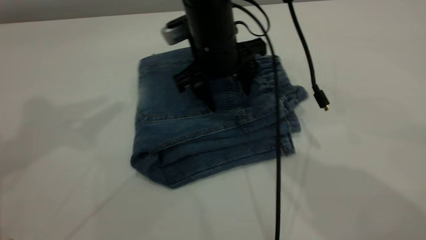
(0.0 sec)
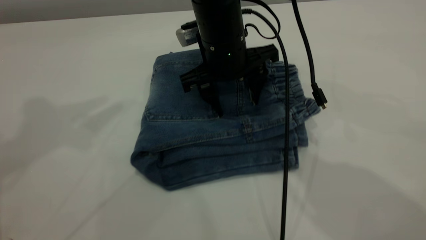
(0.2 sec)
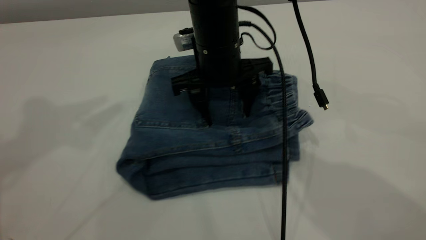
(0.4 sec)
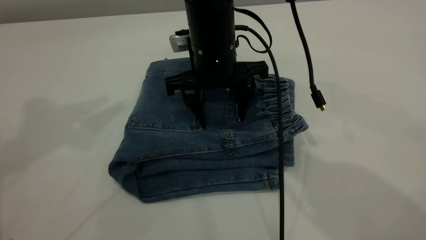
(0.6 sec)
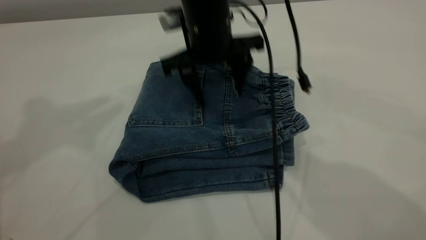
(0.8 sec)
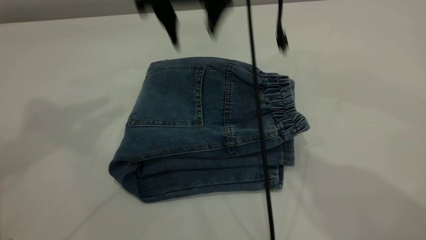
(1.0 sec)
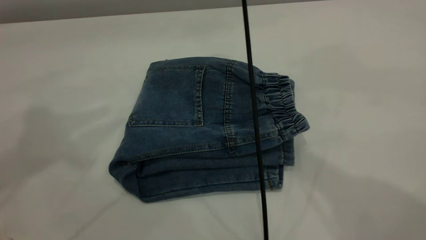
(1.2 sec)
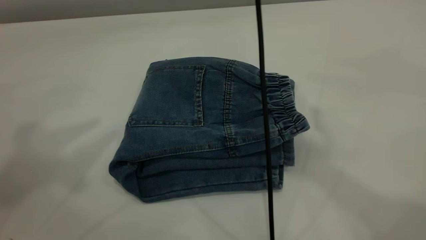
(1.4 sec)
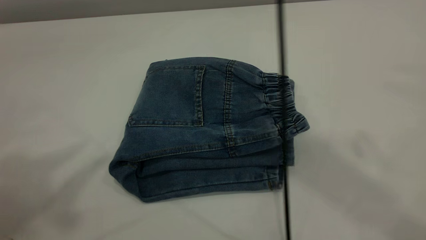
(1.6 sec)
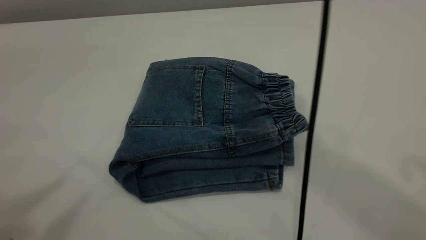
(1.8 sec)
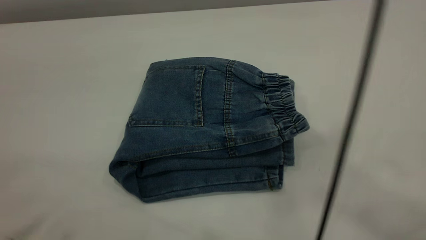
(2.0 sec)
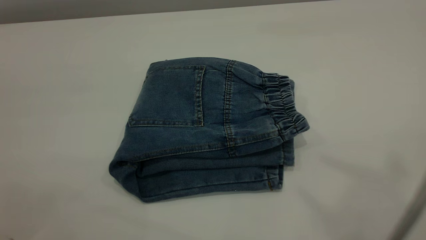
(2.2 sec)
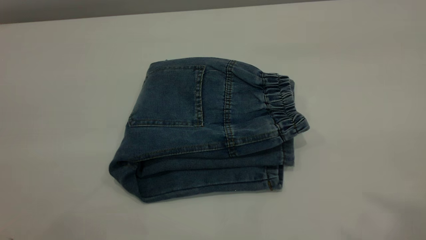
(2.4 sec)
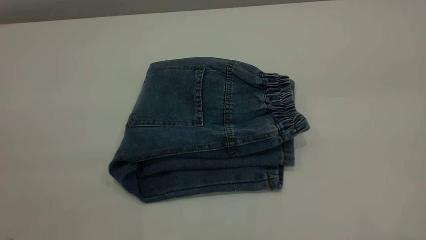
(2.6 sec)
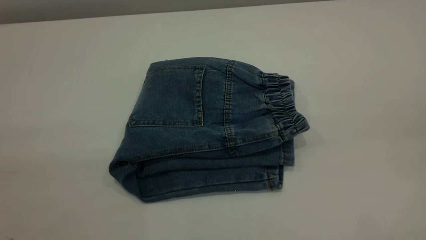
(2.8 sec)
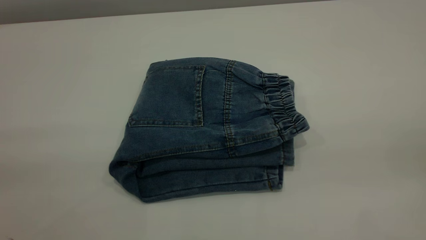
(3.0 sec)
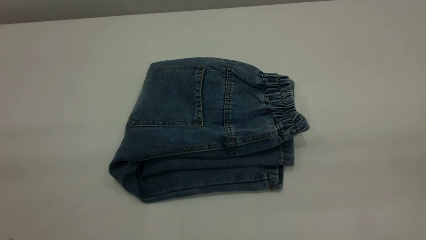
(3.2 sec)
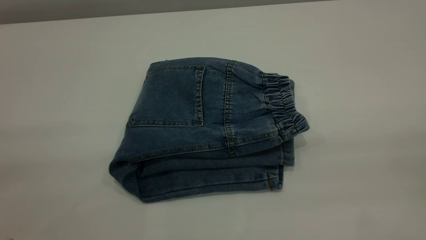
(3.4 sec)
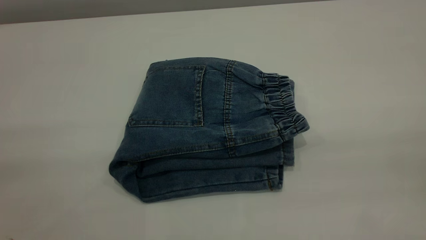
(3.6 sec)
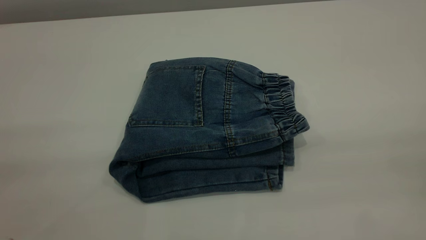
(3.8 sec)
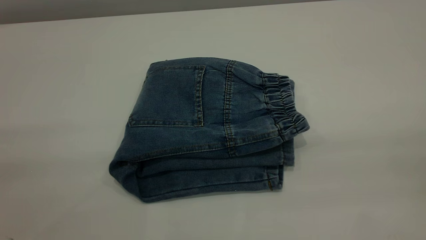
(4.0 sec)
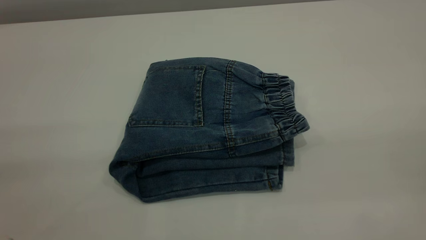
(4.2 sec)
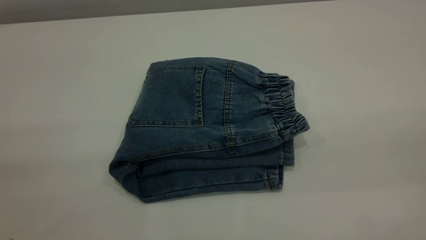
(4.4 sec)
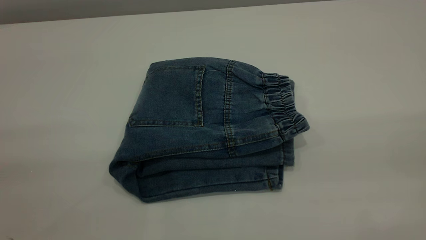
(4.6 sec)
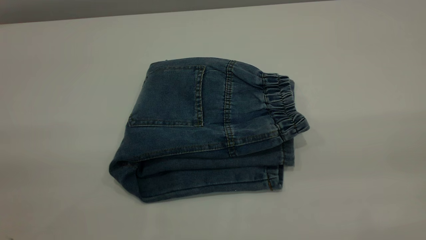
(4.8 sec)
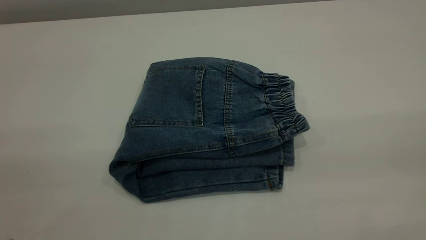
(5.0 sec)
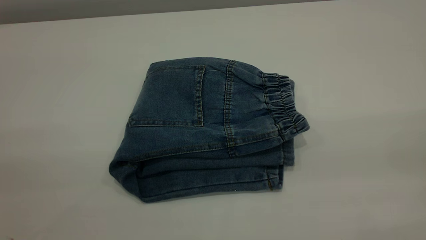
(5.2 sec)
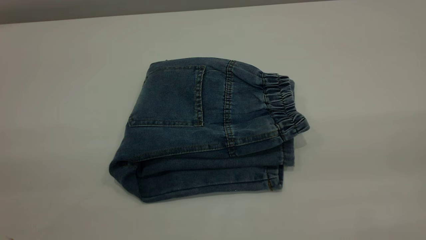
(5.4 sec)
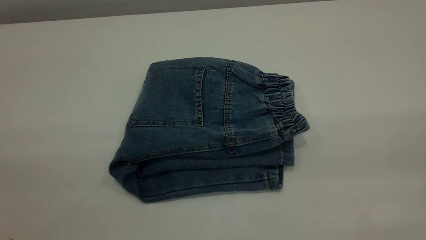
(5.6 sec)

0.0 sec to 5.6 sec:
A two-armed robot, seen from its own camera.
0.0 sec to 1.4 sec: The right gripper goes roughly 30 cm upward. Meanwhile the left gripper heads backward, covering some 5 cm.
1.4 sec to 2.8 sec: The right gripper shifts about 40 cm backward and to the right, while the left gripper is displaced backward by roughly 25 cm.
